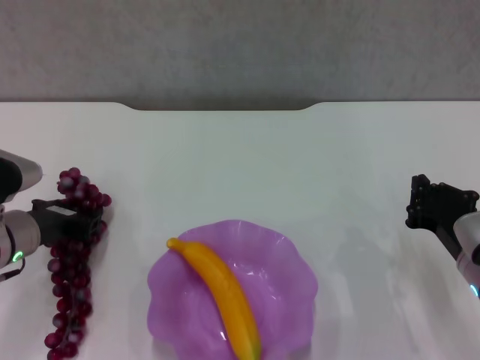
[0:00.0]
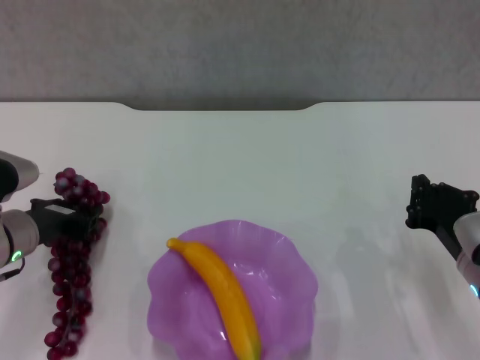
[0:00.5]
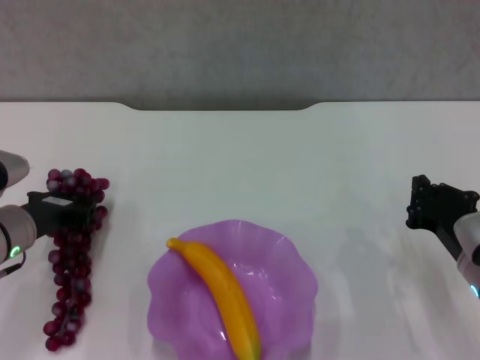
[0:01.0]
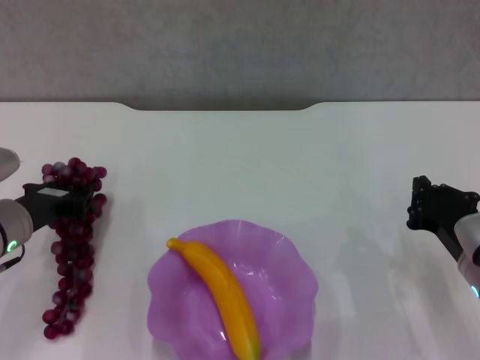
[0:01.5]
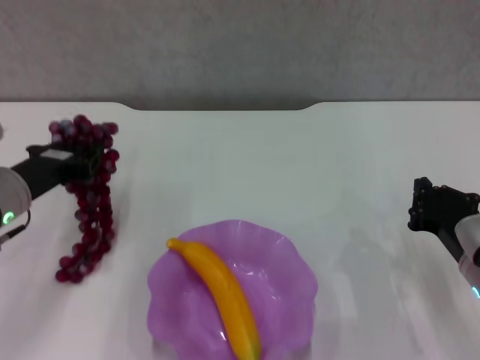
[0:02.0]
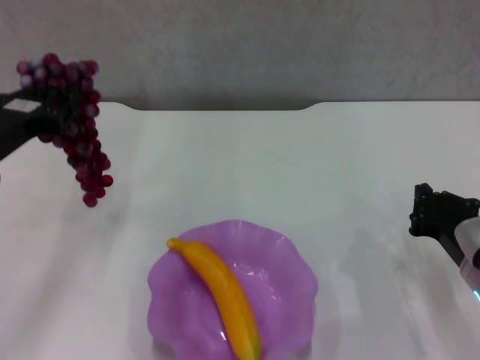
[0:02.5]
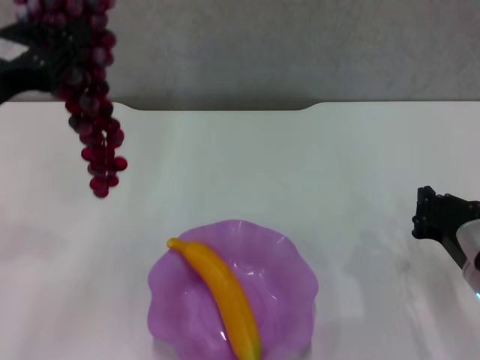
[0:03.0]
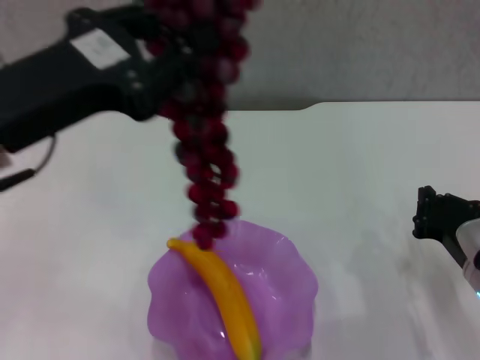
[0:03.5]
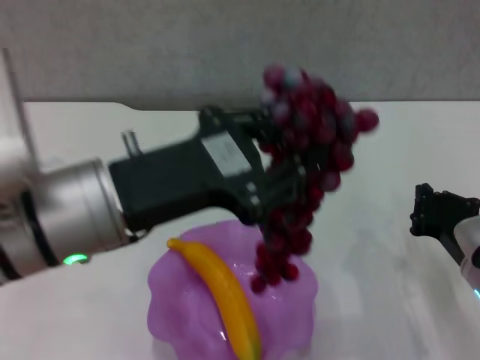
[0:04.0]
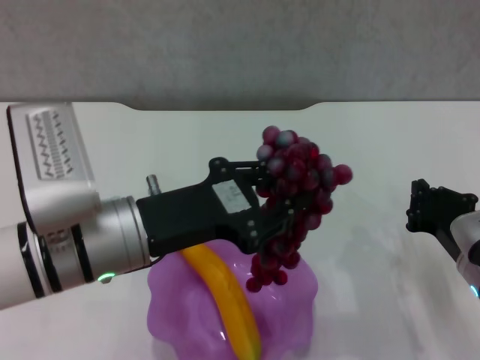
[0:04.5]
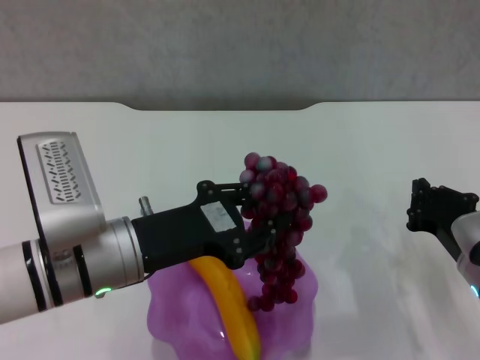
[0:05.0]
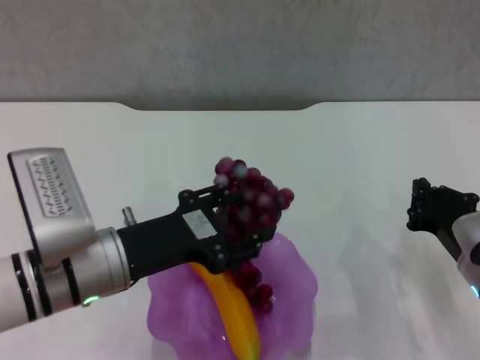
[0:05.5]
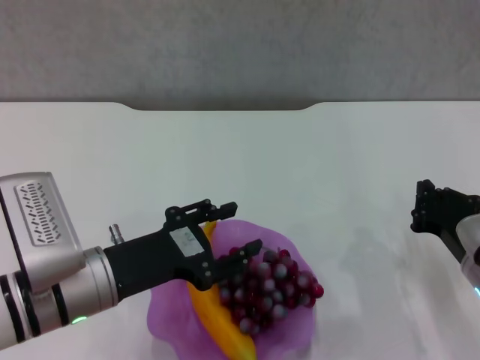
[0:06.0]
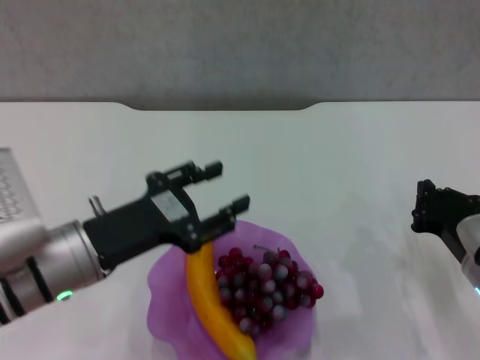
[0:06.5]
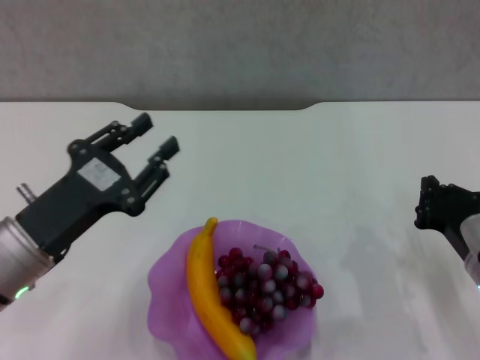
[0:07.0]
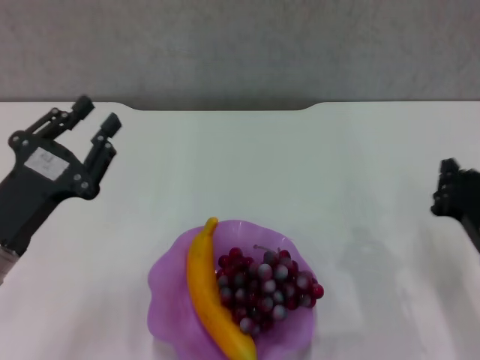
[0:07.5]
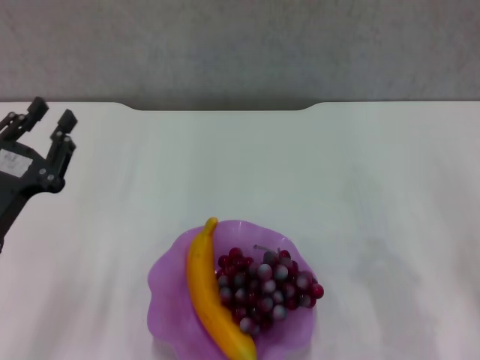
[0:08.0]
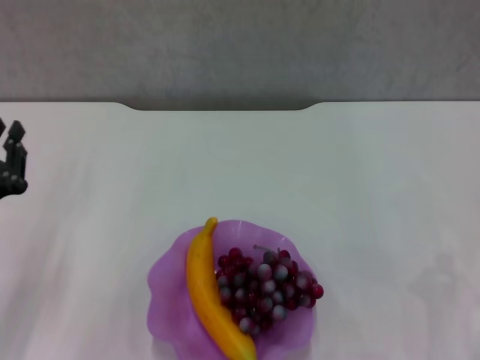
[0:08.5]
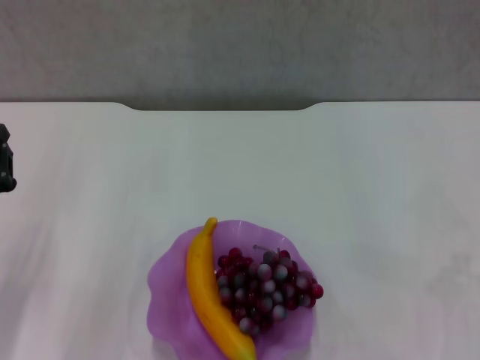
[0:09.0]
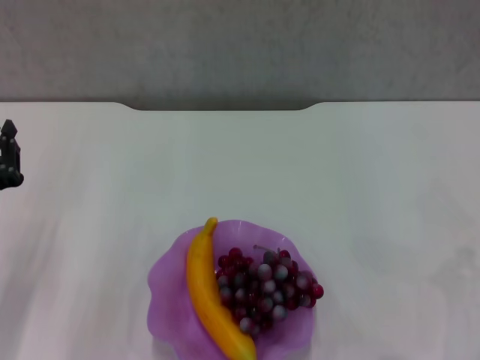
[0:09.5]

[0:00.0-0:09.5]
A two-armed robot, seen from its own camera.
Step, 0:00.0 to 0:06.0: Place the grape in the purple plate with left gripper.
0:00.0 to 0:02.0: The grippers move only a little.
0:02.0 to 0:04.0: The left gripper heads to the right, upward and backward, covering about 20 cm.
0:04.0 to 0:05.5: The left gripper heads downward, covering roughly 10 cm.
0:05.5 to 0:07.5: The left gripper travels to the left by roughly 10 cm.
0:07.5 to 0:09.5: The right gripper is displaced to the right by about 10 cm. The left gripper moves to the left, about 5 cm.

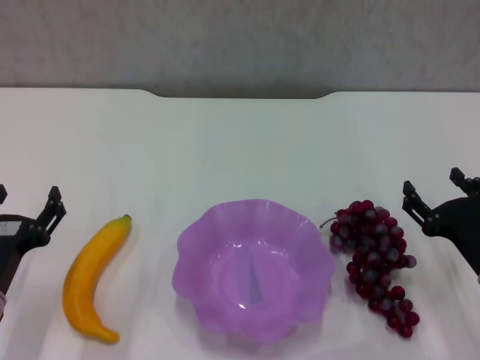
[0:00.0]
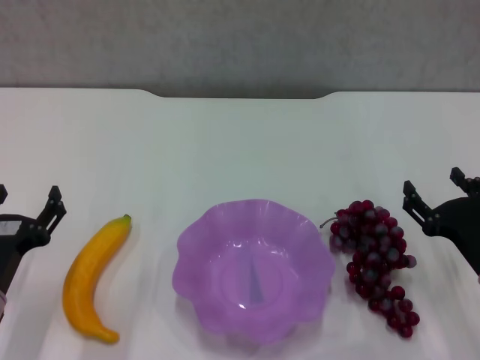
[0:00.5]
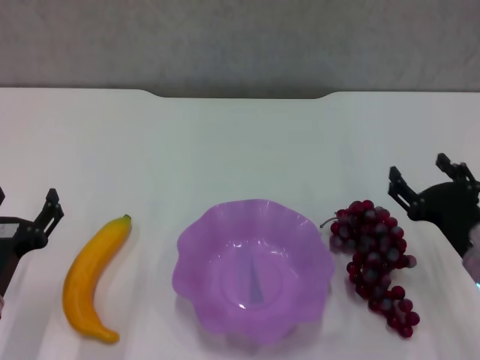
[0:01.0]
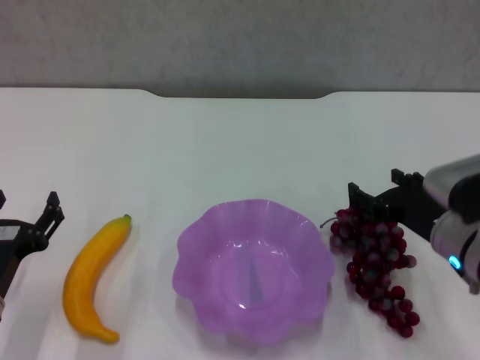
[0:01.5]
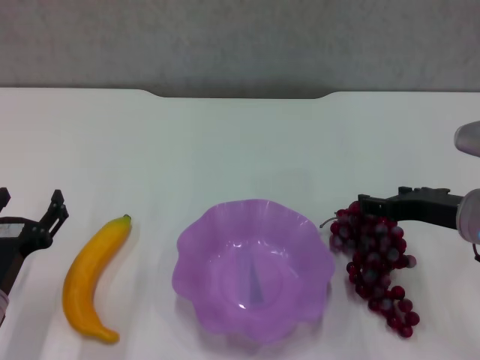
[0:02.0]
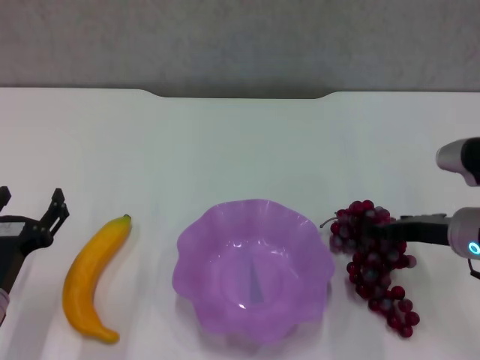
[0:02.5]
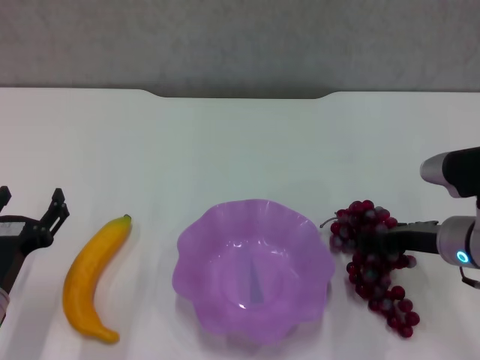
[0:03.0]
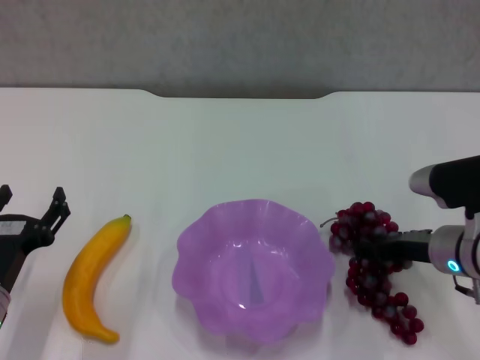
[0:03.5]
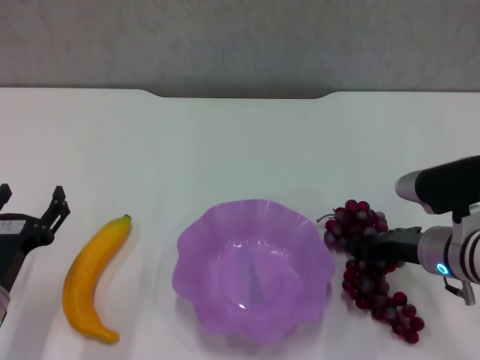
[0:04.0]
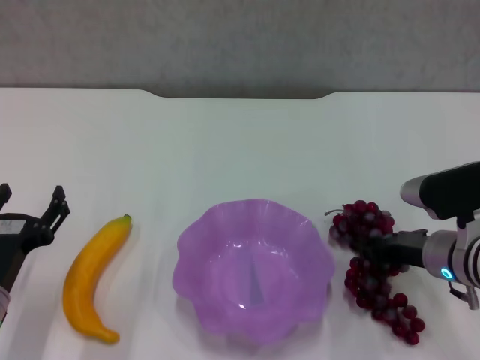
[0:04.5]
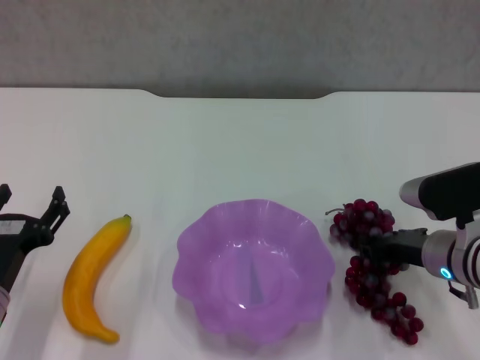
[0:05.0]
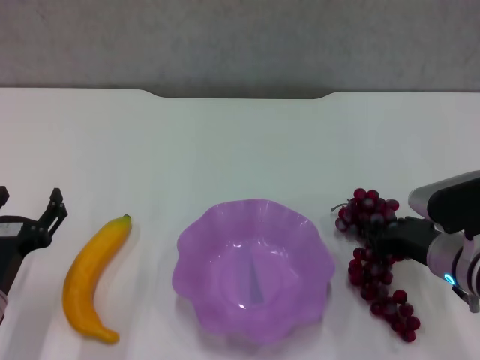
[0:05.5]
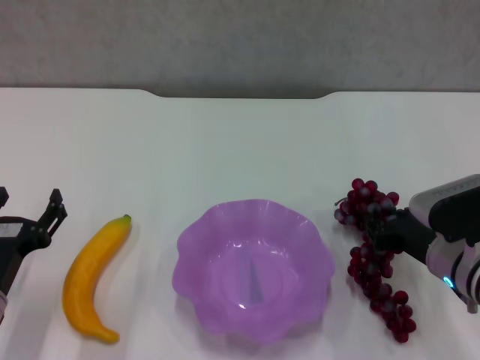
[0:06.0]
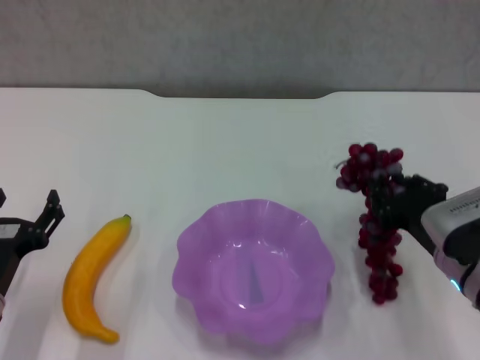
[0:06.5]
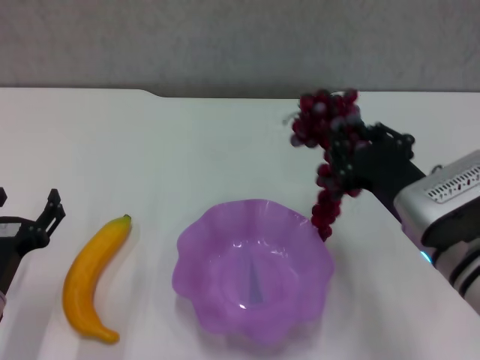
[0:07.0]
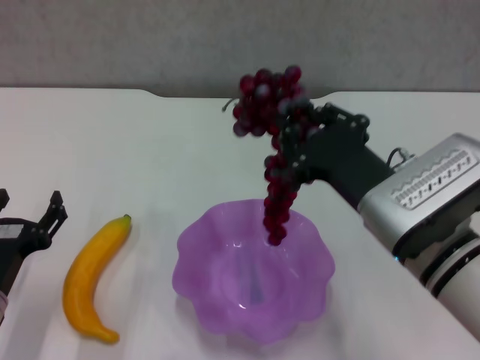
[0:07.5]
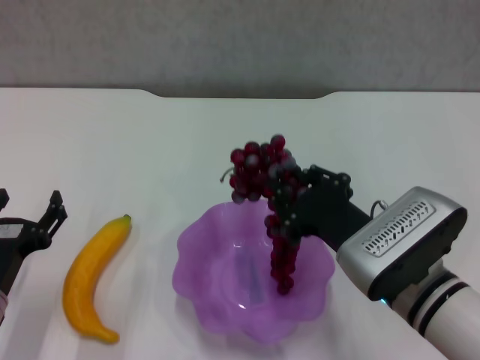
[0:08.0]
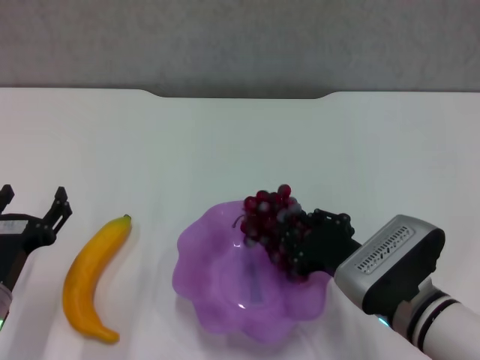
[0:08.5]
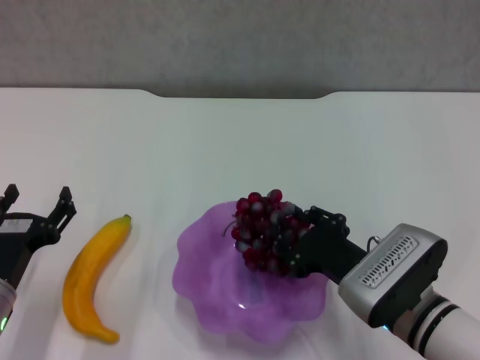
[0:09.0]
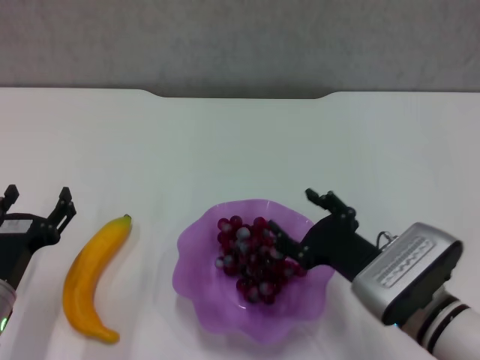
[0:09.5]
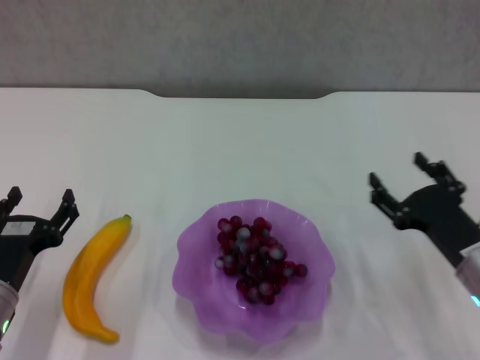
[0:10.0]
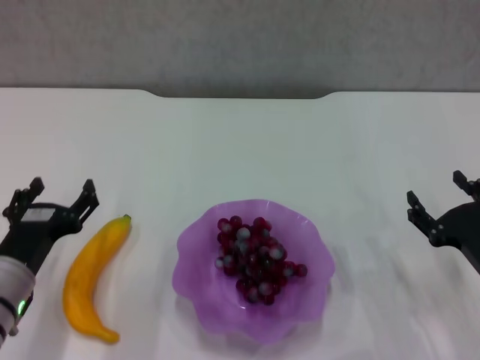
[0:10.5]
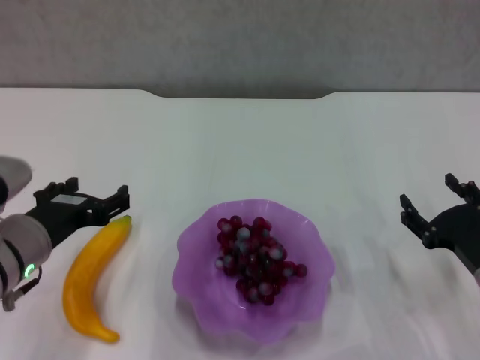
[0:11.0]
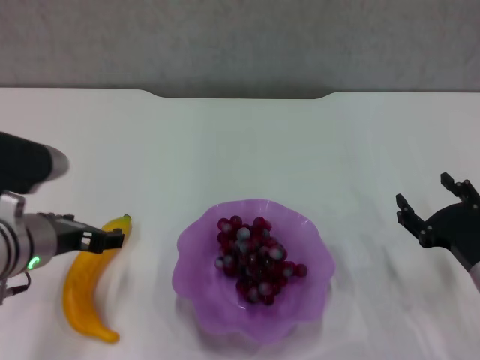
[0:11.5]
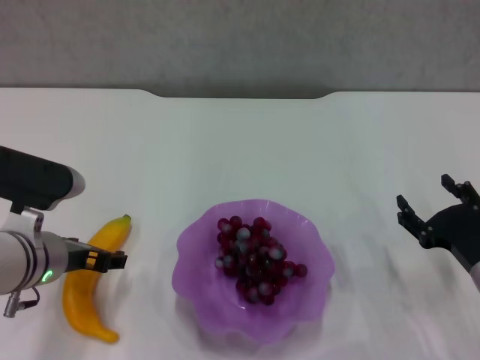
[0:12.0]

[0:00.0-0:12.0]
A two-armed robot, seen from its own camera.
Step, 0:00.0 to 0:04.0: Grasp the grape with right gripper.
Step, 0:04.5 to 0:09.5: Place the grape in the purple plate with right gripper.
0:00.0 to 0:02.0: The right gripper moves upward and forward, approximately 10 cm.
0:02.0 to 0:04.0: The right gripper travels downward by about 5 cm.
0:04.0 to 0:06.0: The right gripper closes.
0:06.0 to 0:08.0: The right gripper moves to the left, upward and backward, some 10 cm.
0:08.0 to 0:10.0: The right gripper shifts some 10 cm to the right and downward, and opens up.
0:10.0 to 0:12.0: The left gripper moves forward and upward, approximately 10 cm.

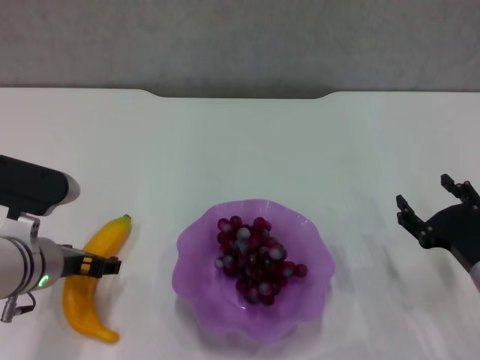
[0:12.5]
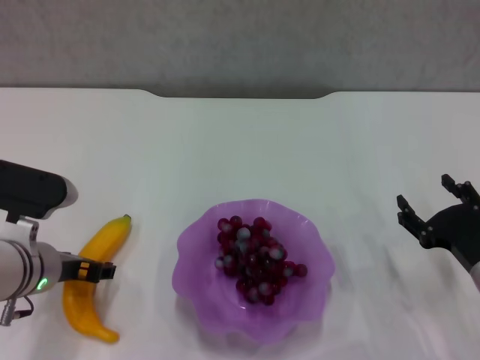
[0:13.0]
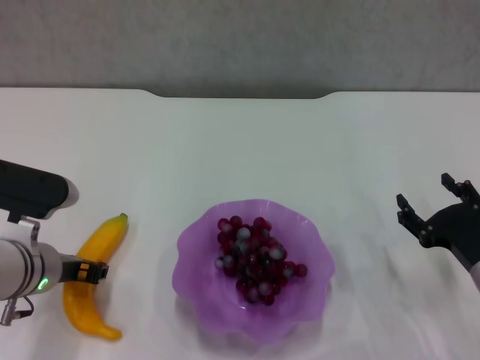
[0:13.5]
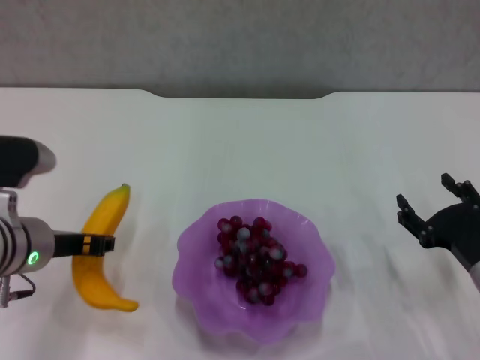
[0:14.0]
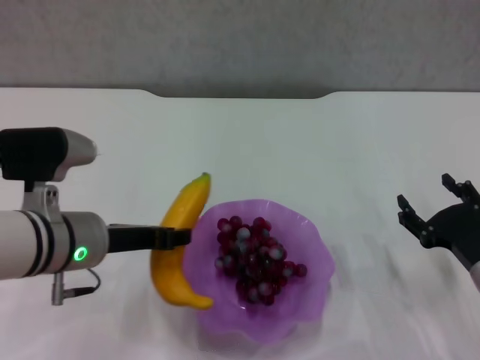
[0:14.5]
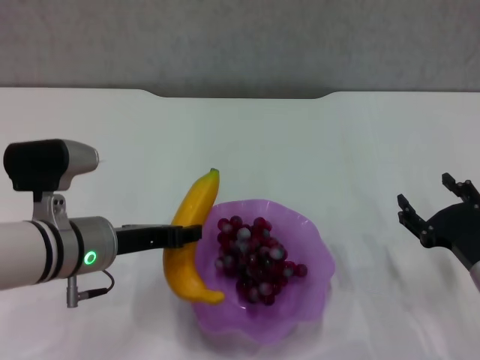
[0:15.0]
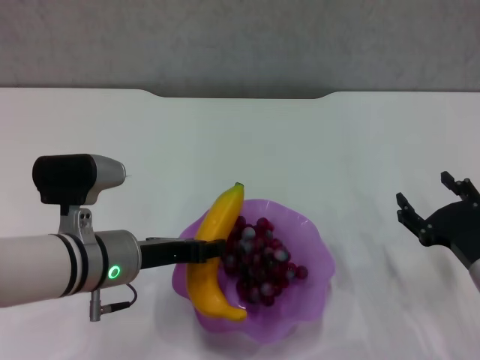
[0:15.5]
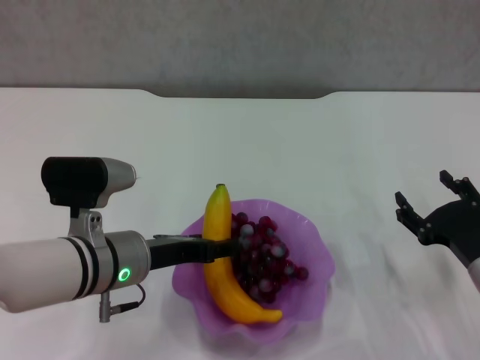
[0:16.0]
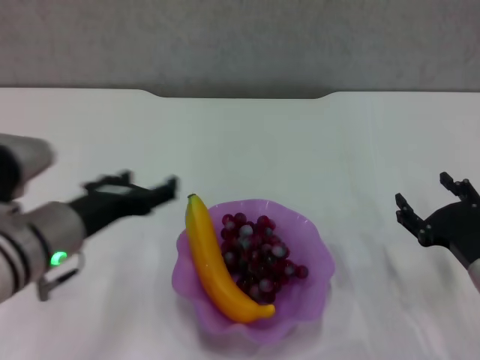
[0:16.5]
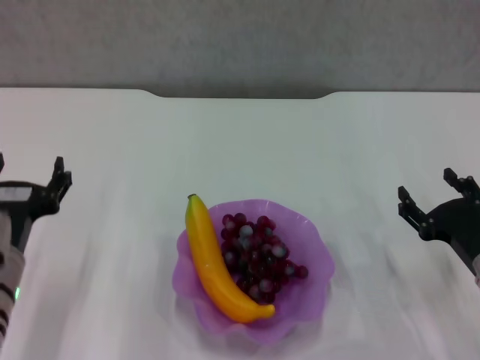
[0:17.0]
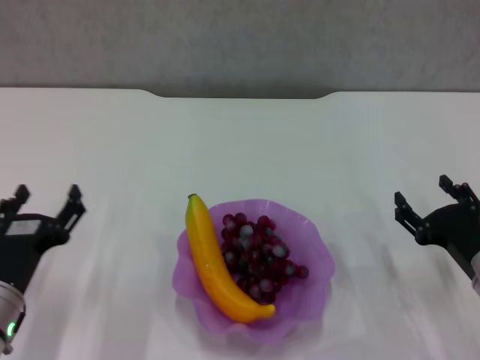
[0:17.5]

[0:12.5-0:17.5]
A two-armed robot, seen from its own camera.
Step, 0:13.5 to 0:16.0: Place the banana in the purple plate with left gripper.
0:12.5 to 0:15.0: The left gripper closes its fingers.
0:15.0 to 0:17.5: The left gripper is displaced backward, to the left and downward by approximately 10 cm, and opens.
